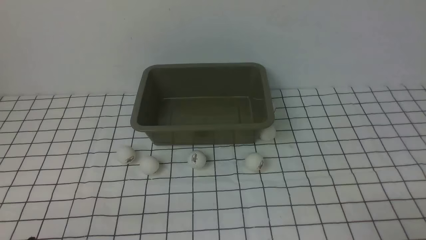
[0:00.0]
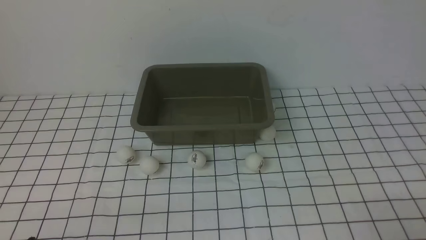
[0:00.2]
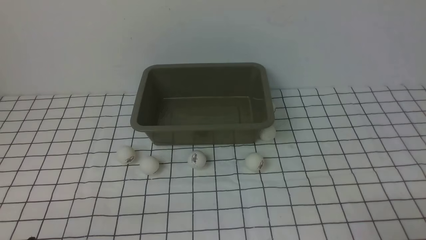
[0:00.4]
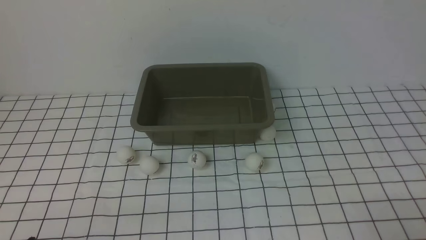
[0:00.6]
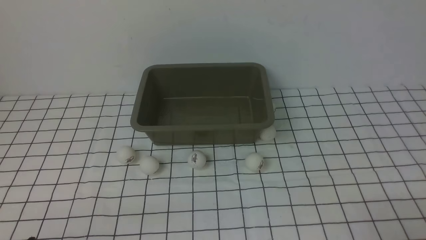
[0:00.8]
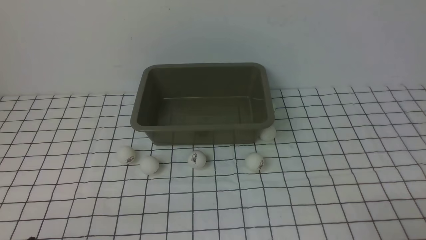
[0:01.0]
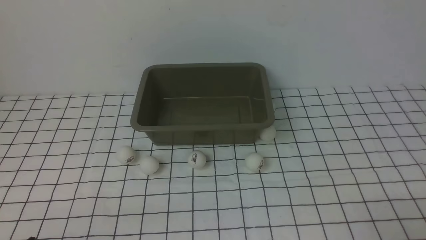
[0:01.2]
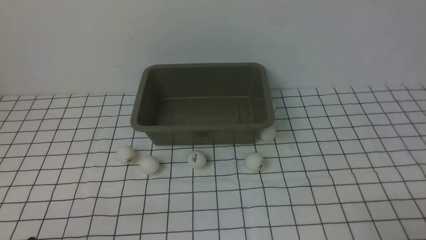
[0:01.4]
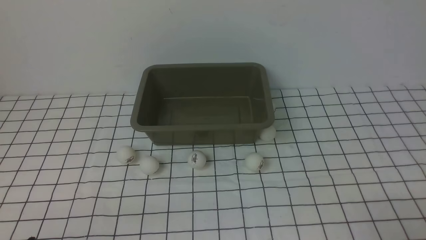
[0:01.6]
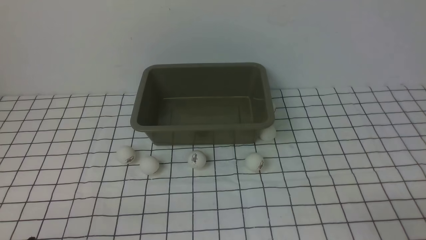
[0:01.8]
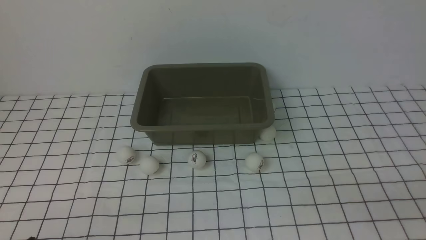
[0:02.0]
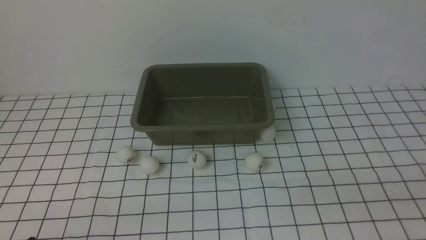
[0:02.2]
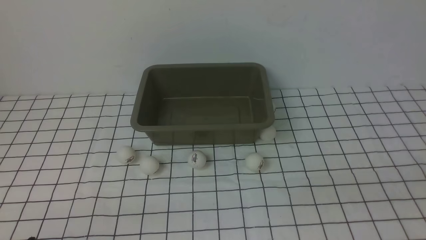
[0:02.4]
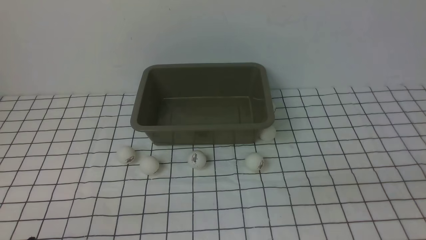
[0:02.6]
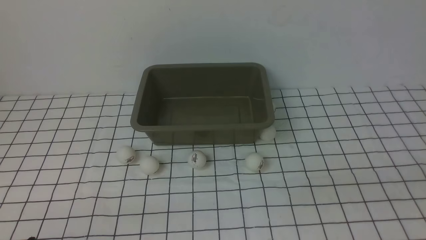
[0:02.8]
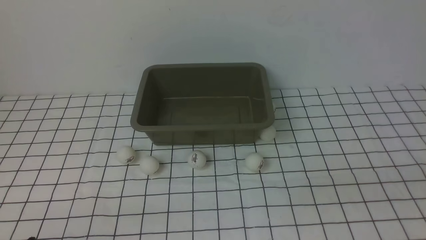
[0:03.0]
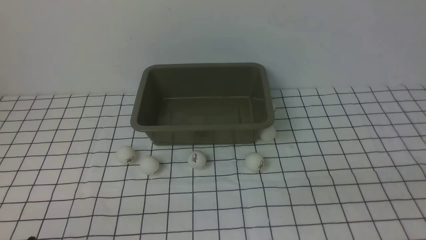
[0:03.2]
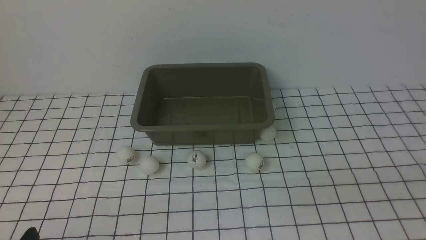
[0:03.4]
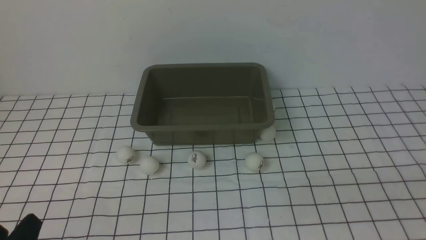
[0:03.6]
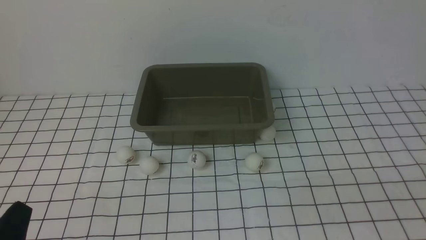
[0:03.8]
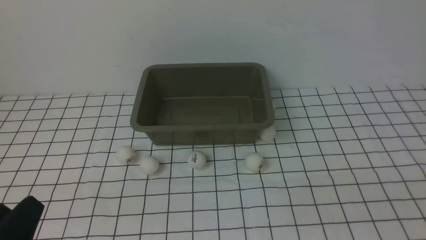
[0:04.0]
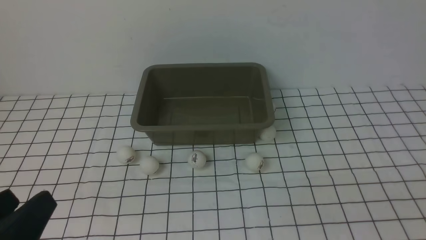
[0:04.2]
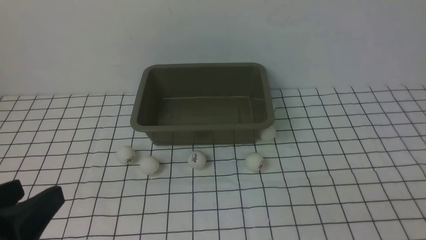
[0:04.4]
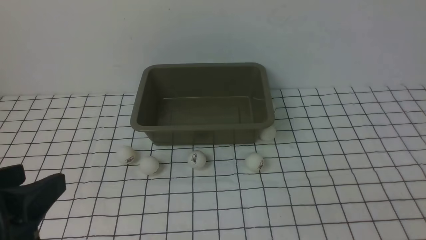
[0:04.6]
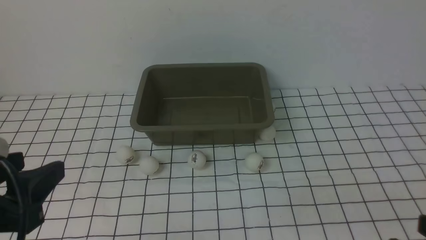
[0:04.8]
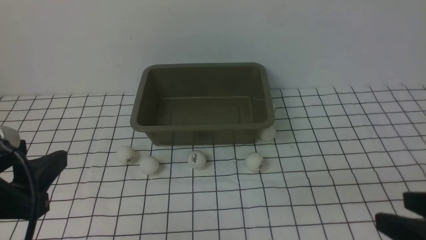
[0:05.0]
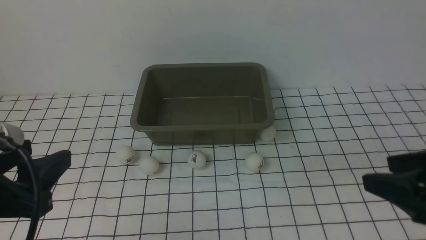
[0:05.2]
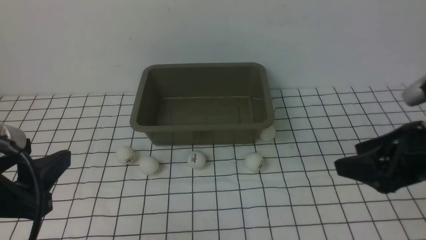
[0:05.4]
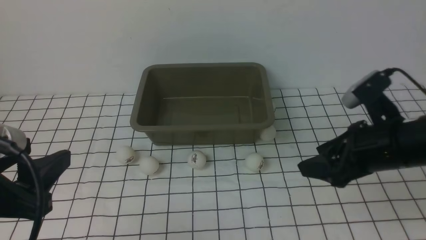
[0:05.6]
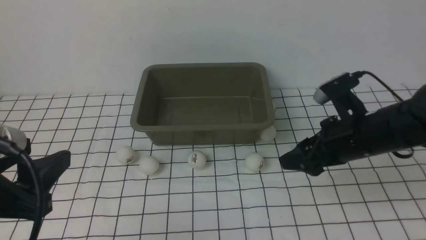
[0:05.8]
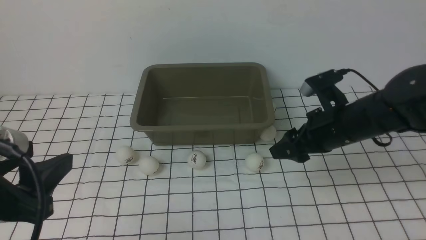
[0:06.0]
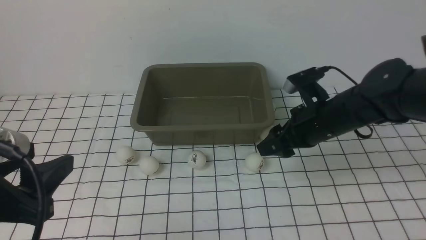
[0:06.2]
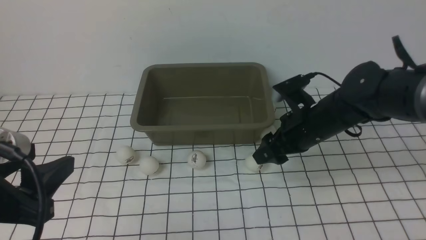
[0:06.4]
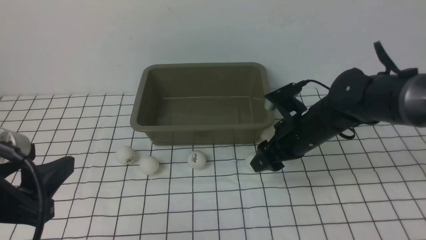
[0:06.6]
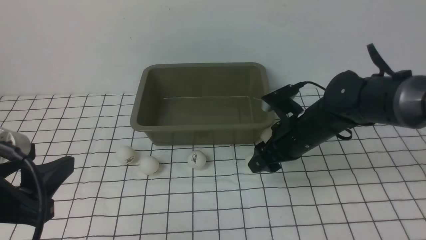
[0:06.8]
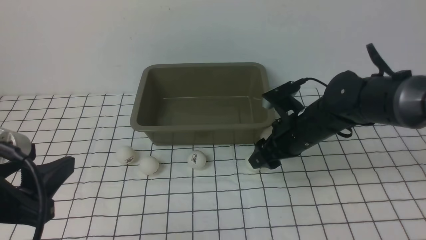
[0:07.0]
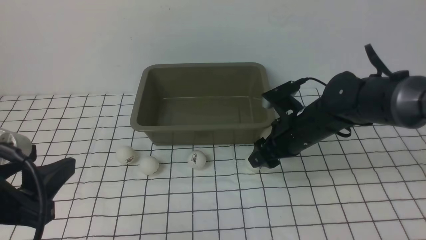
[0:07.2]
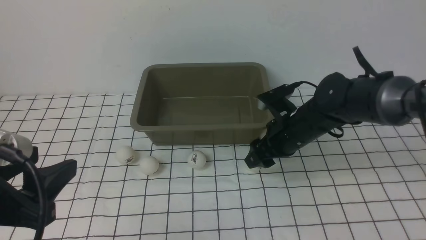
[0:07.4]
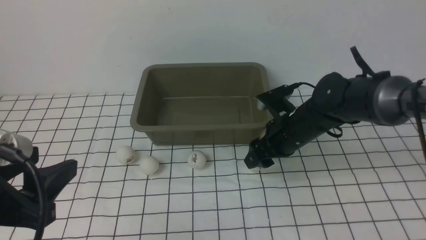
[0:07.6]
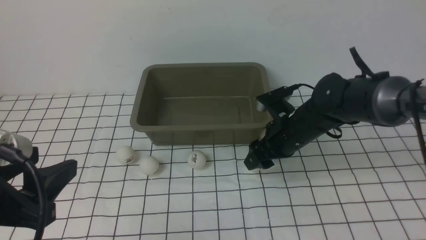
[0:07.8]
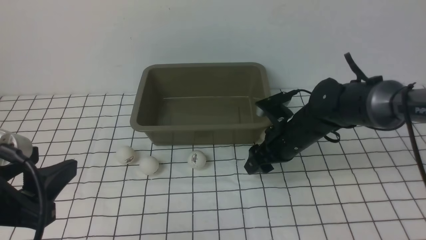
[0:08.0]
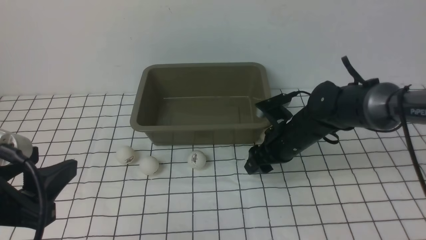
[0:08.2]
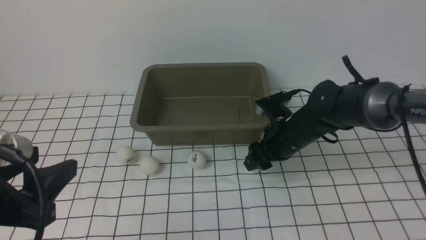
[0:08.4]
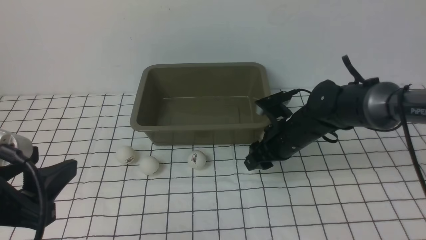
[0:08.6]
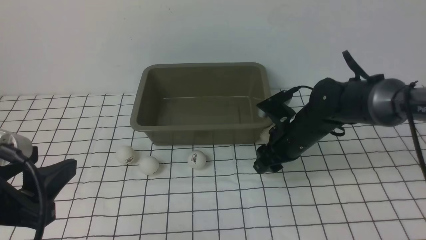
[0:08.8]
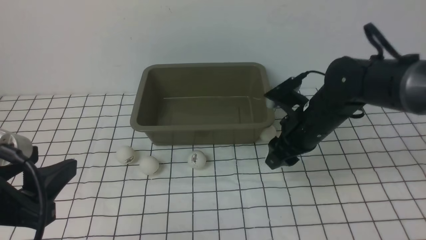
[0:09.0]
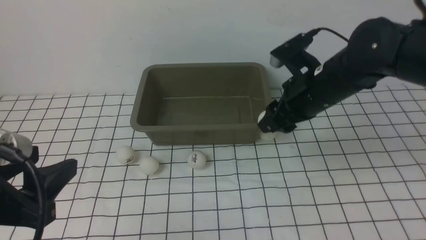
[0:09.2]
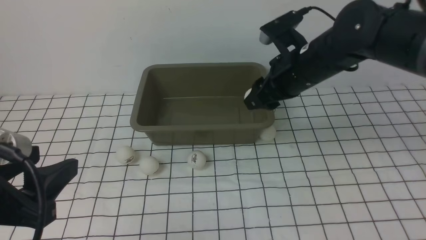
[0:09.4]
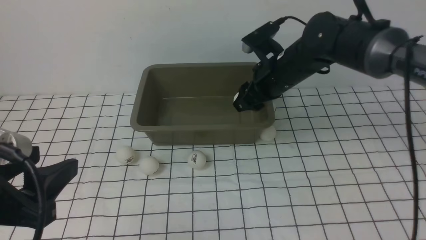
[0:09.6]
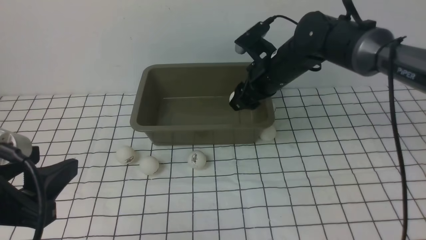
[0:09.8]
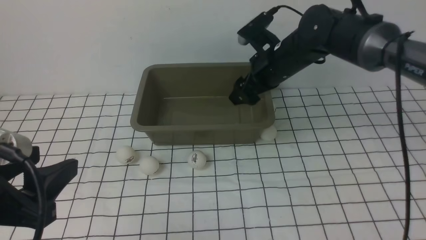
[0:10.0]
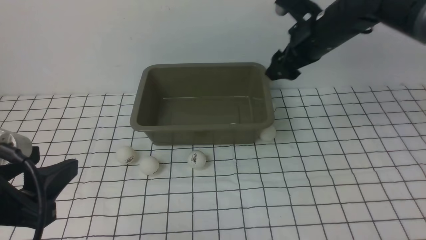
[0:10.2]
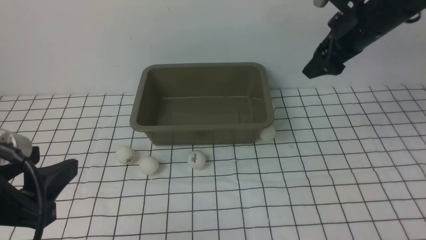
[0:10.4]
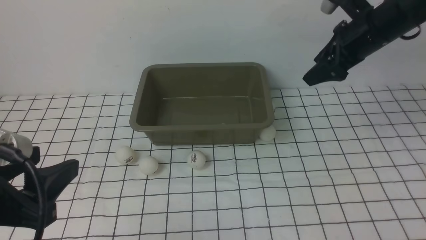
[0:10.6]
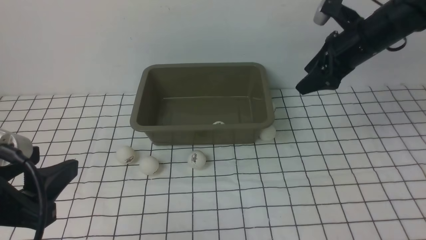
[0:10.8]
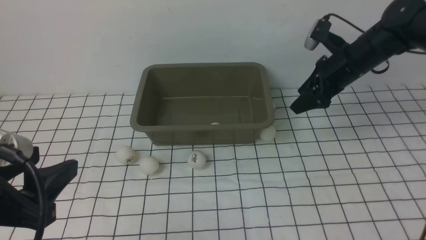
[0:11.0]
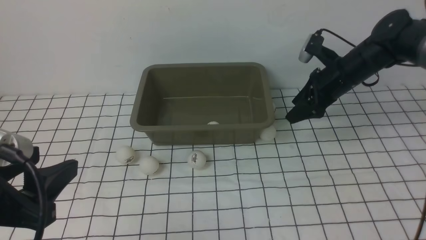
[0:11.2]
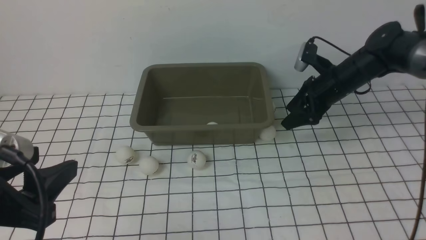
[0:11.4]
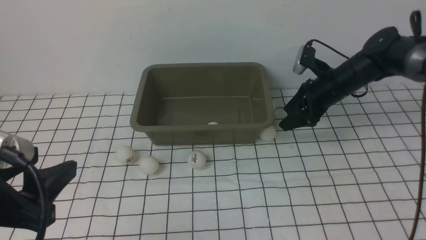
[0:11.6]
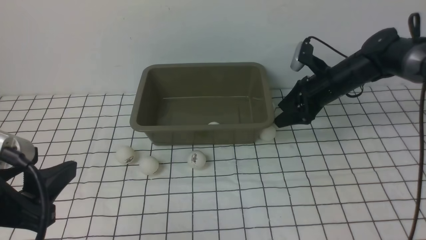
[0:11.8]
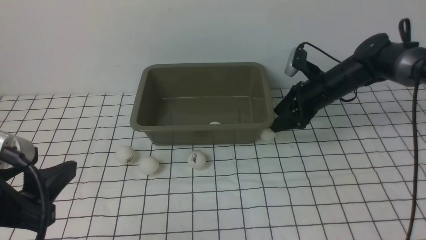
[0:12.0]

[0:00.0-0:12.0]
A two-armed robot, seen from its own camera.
Step, 0:00.0 to 0:08.8: use the right arm to clamp the table tennis ball closest to it.
Step, 0:09.2 to 0:10.0: use the right arm to put the table tennis ball into the box.
0:00.0 to 0:01.6: Both grippers stay about where they are.
0:03.0 to 0:04.4: The left gripper goes roughly 15 cm upward.
0:04.4 to 0:06.0: The right gripper moves forward, about 30 cm.
0:06.0 to 0:07.6: The right gripper ends up roughly 5 cm from where it was.
0:07.6 to 0:09.0: The right gripper shifts by roughly 5 cm, and closes its fingers.
0:09.0 to 0:10.4: The right gripper shifts some 15 cm upward, forward and to the right, and opens up.
0:10.4 to 0:12.0: The right gripper heads downward, covering roughly 15 cm.

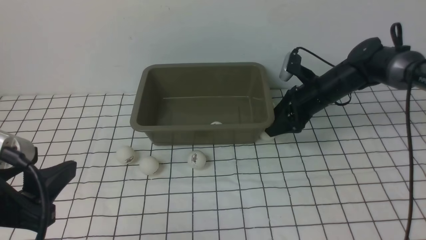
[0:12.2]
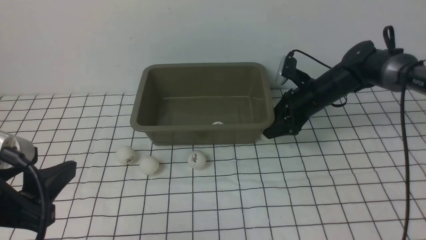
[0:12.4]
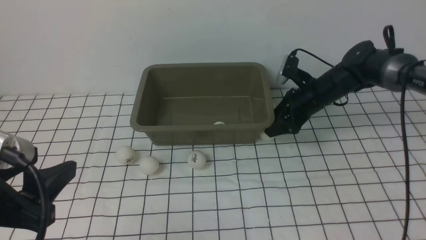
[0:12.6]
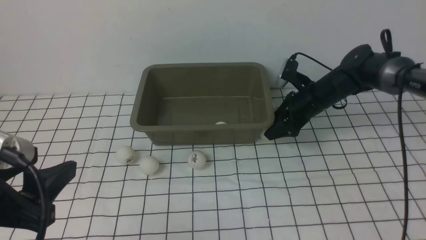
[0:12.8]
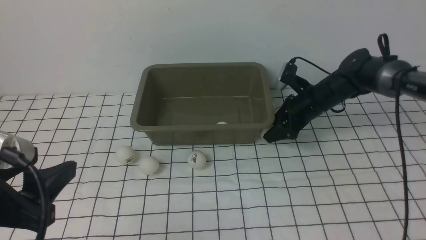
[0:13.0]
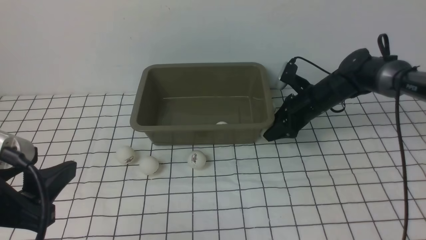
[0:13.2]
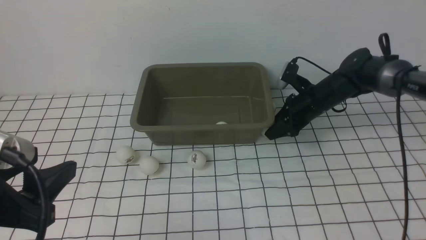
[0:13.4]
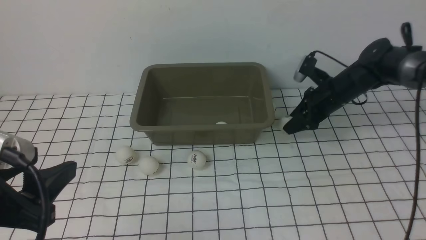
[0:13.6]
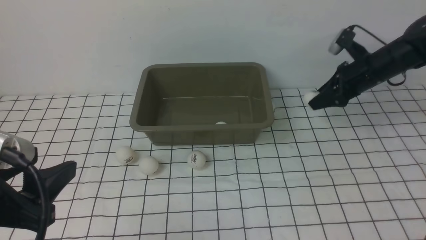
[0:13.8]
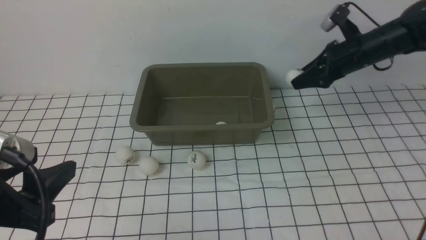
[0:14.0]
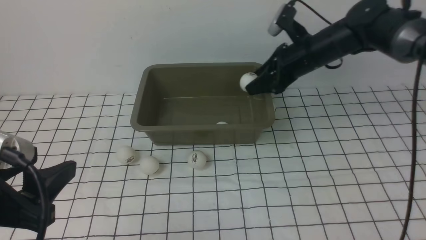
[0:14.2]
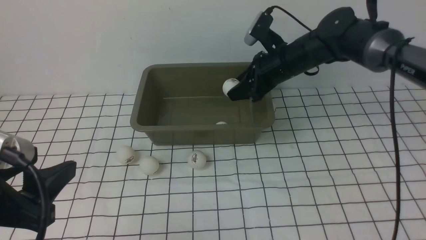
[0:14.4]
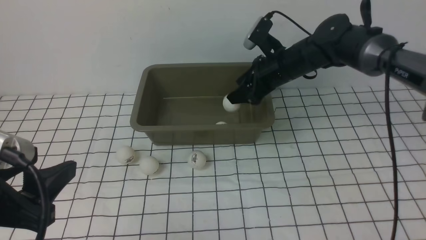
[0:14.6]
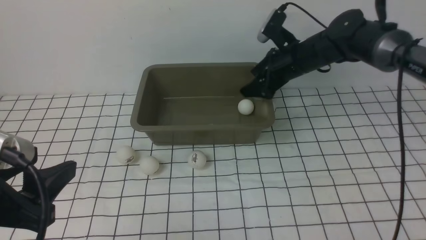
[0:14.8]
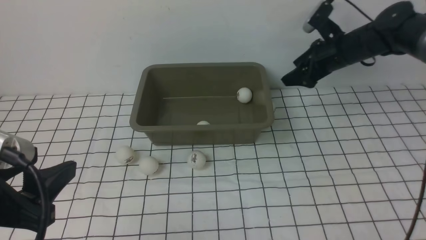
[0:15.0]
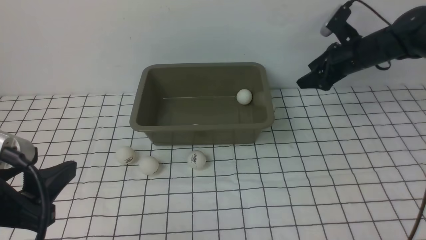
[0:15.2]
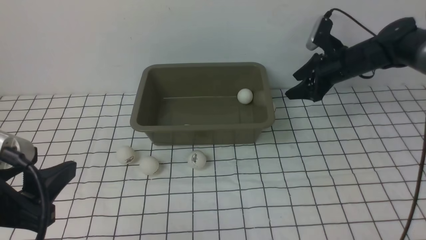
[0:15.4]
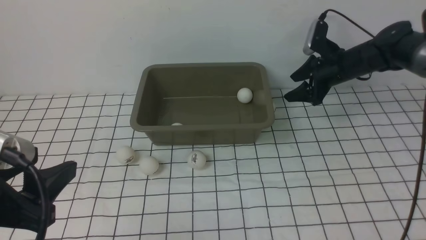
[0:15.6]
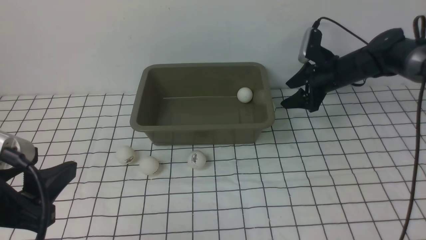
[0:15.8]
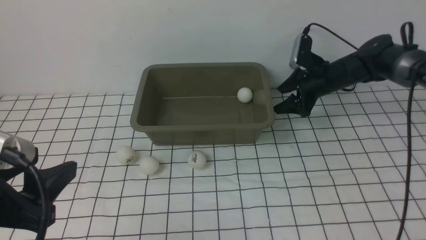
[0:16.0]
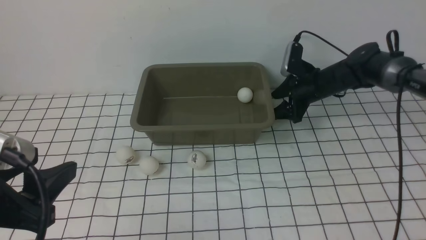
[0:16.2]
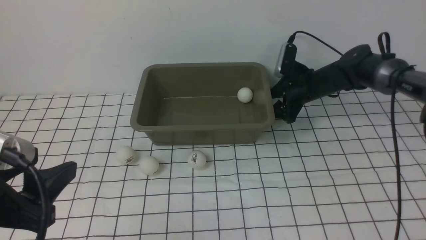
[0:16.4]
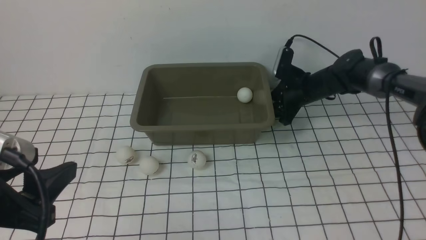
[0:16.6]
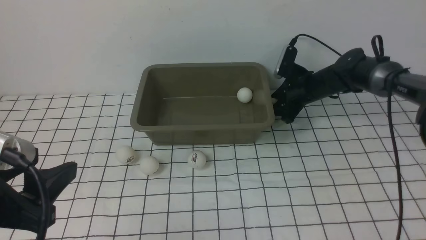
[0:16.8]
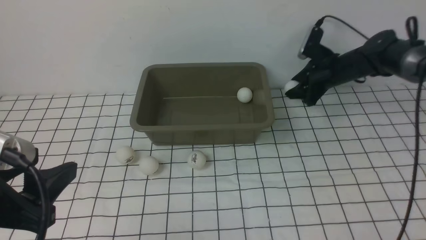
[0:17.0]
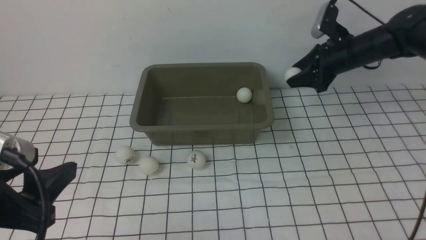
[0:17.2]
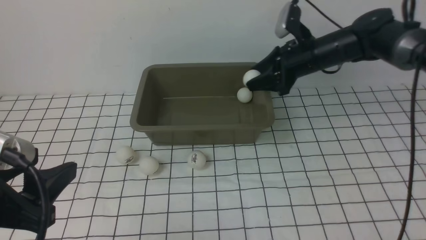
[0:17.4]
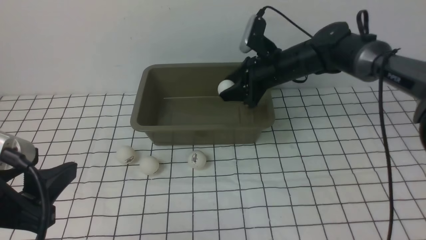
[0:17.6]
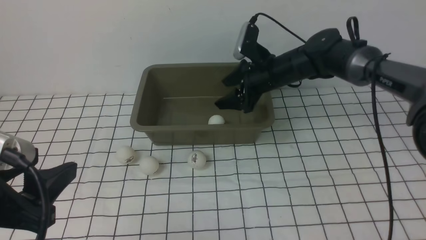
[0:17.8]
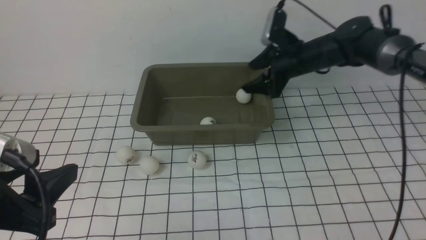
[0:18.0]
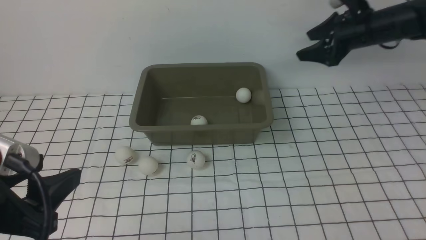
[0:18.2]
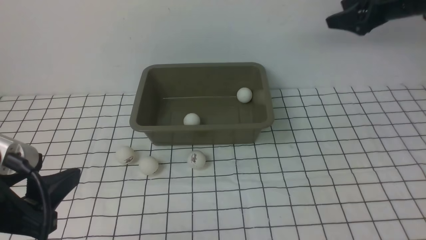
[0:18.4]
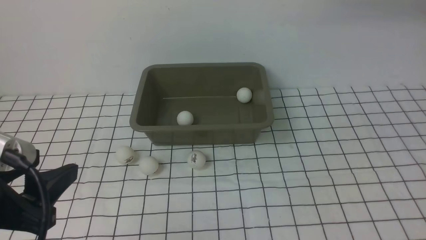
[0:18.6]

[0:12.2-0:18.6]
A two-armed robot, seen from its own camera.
Step, 0:13.8 to 0:14.8: use the right arm to put the table tennis ball into the box.
Step, 0:15.0 to 0:17.0: use the right arm to clamp the table tennis ball closest to it.
Step, 0:17.2 to 0:17.8: use the right arm to put the table tennis ball into the box.
0:12.2 to 0:13.8: The right gripper shifts some 5 cm to the right, and closes its fingers.
0:13.8 to 0:15.4: The right gripper reaches some 10 cm to the left, then returns, and opens its fingers.
0:15.4 to 0:17.0: The right gripper closes.
0:17.0 to 0:18.6: The right gripper is displaced upward by roughly 25 cm, and opens up.
